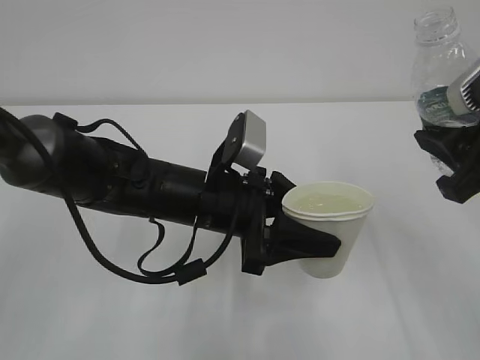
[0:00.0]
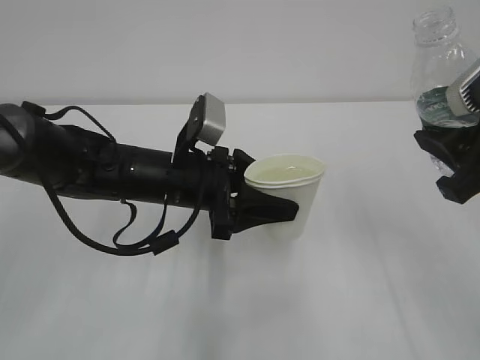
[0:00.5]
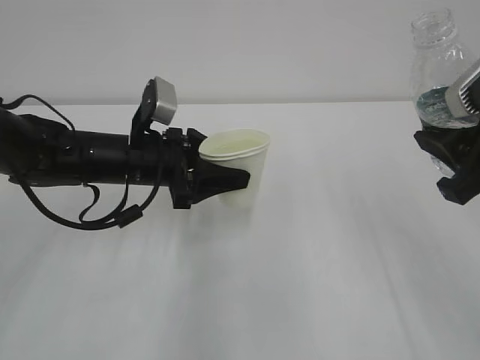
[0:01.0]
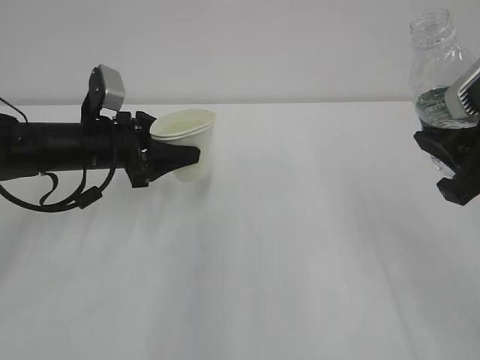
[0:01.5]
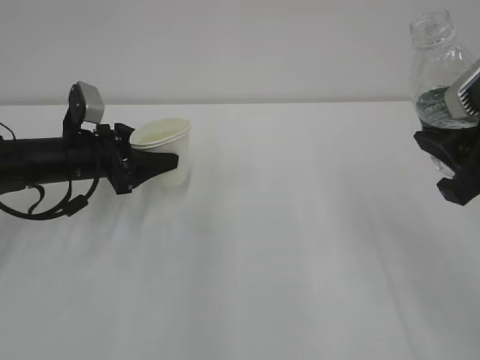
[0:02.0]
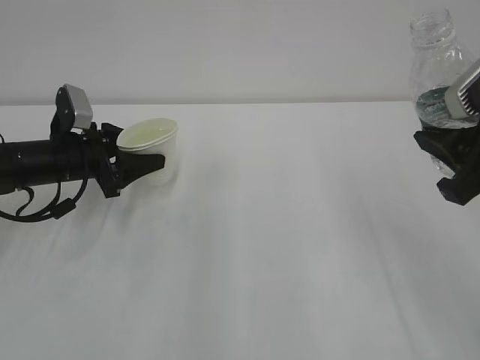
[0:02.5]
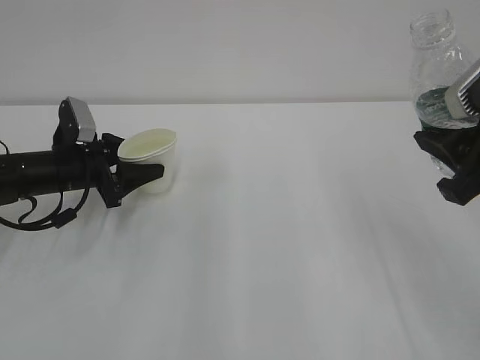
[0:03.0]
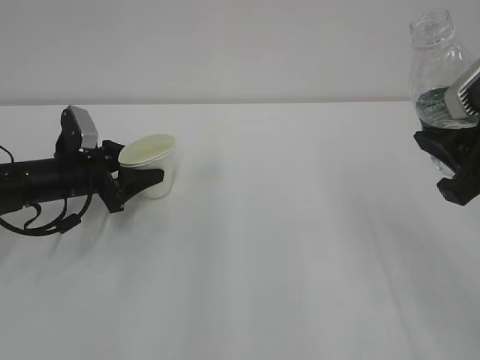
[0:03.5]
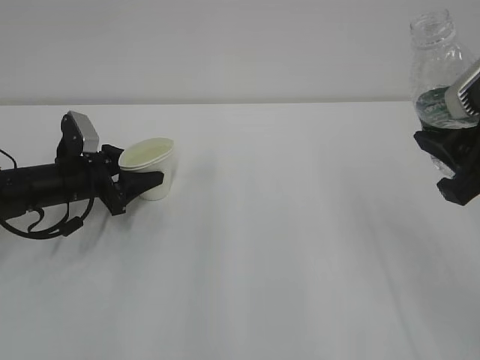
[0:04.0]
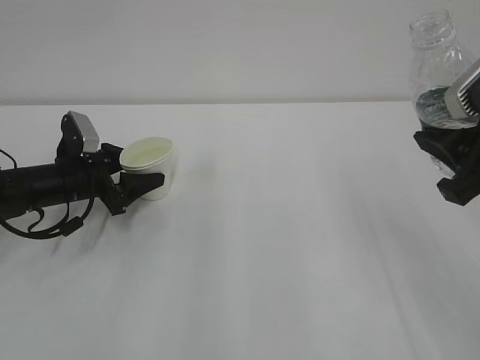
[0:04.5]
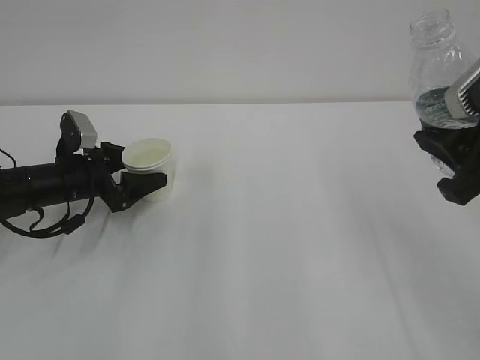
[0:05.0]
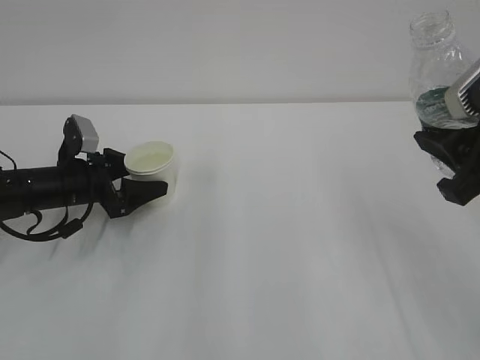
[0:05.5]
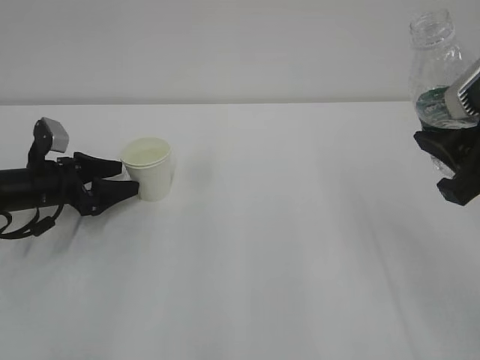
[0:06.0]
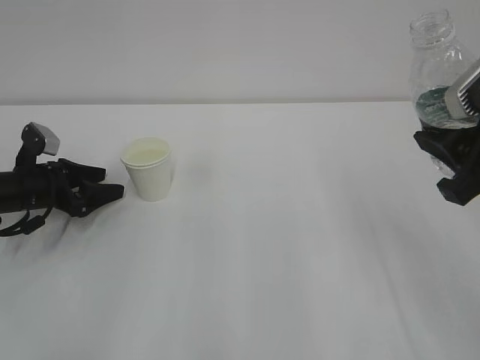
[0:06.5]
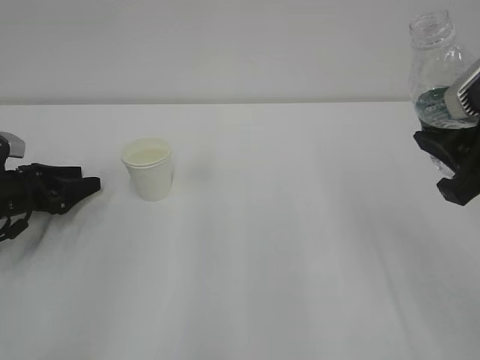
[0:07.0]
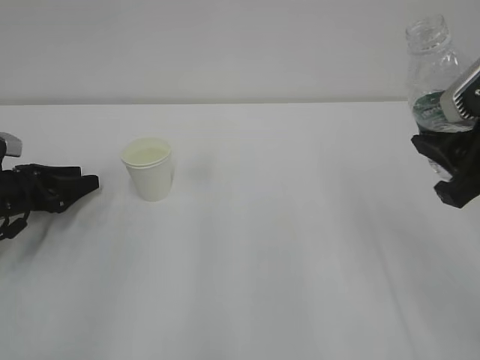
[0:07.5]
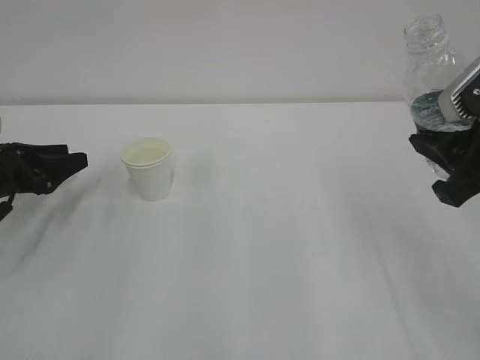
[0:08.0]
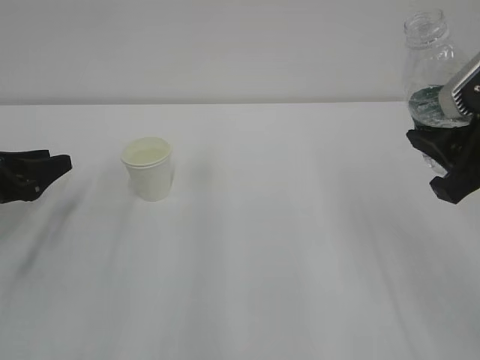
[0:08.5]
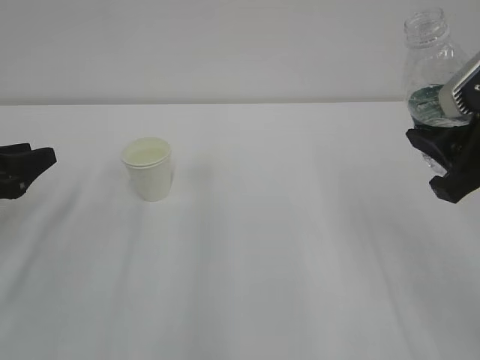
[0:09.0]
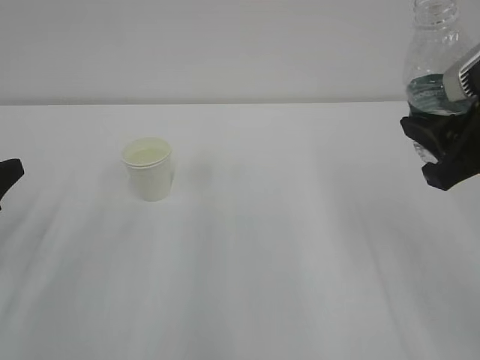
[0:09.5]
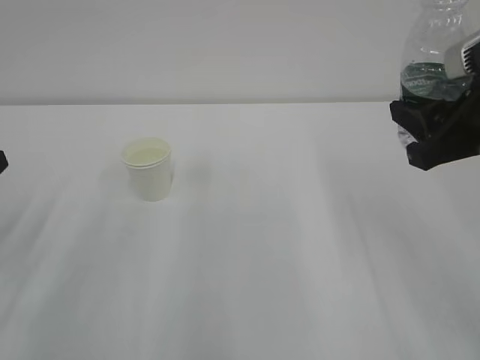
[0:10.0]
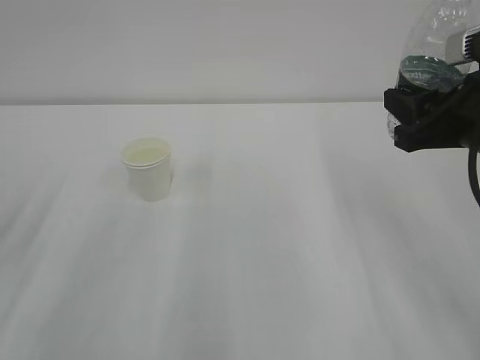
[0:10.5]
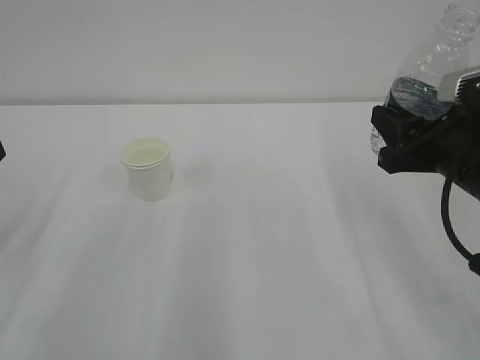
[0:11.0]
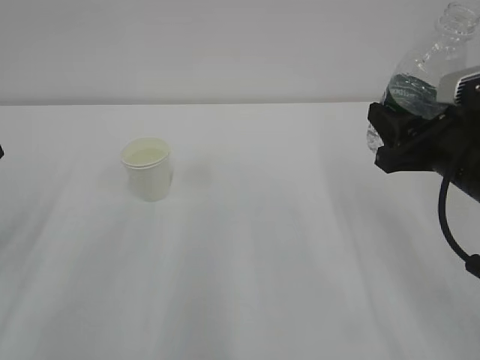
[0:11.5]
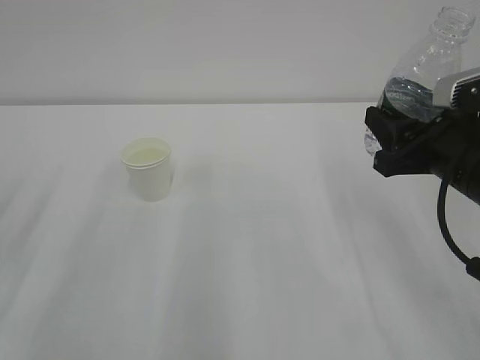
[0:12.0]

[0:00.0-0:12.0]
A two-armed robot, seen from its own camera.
0:00.0 to 0:02.0: The left gripper goes roughly 20 cm to the left and forward.
0:02.0 to 0:04.0: The left gripper moves approximately 5 cm.
0:04.0 to 0:06.0: The left gripper opens.
0:06.0 to 0:08.0: The left gripper shifts approximately 5 cm to the left.
0:08.0 to 0:10.0: The left gripper moves backward and upward, approximately 15 cm.
0:10.0 to 0:12.0: The right gripper travels downward by approximately 5 cm.

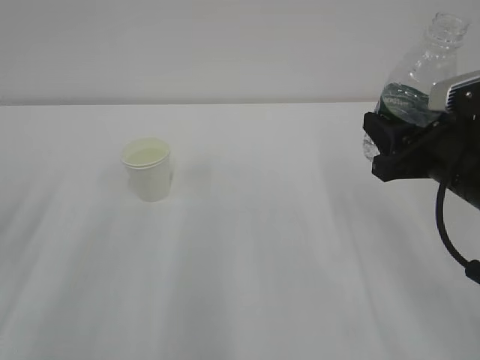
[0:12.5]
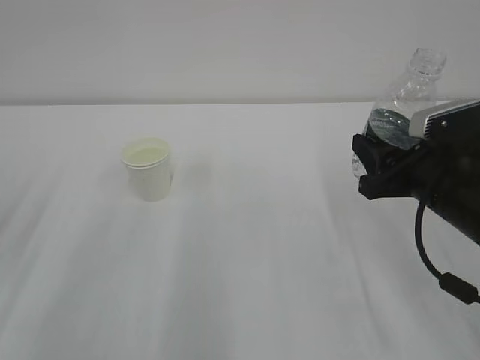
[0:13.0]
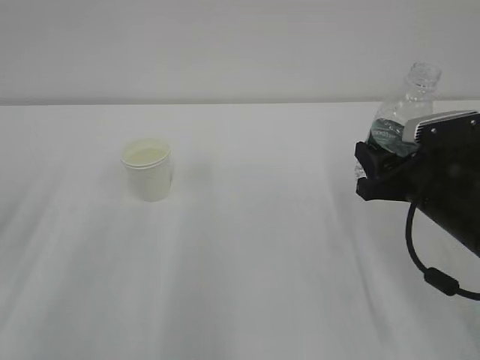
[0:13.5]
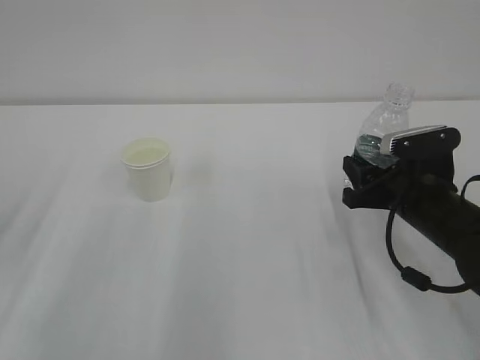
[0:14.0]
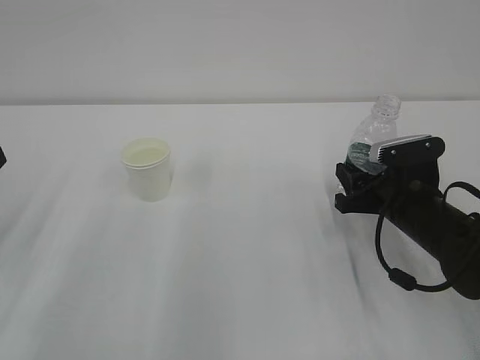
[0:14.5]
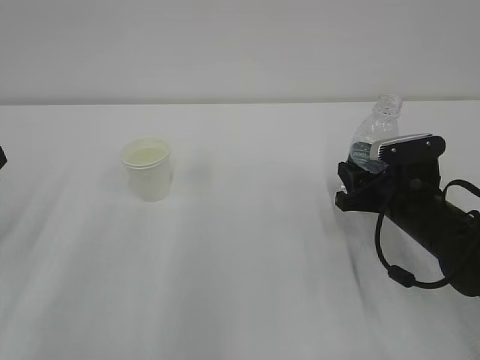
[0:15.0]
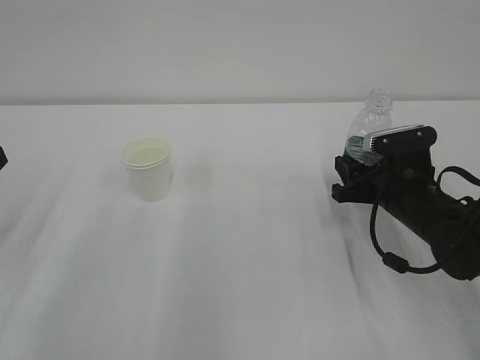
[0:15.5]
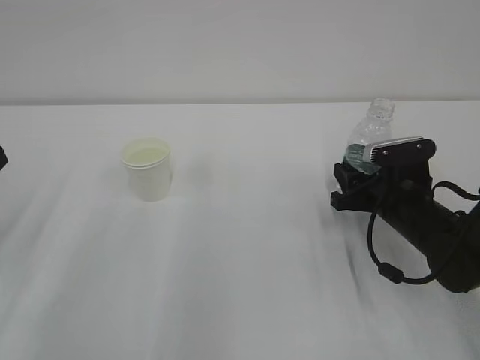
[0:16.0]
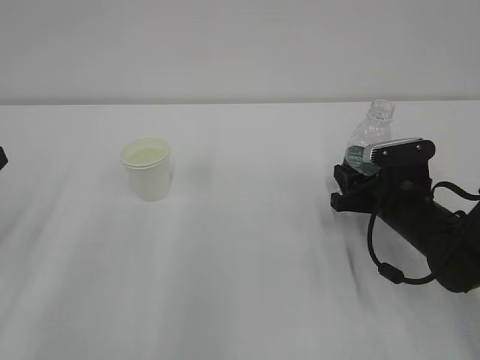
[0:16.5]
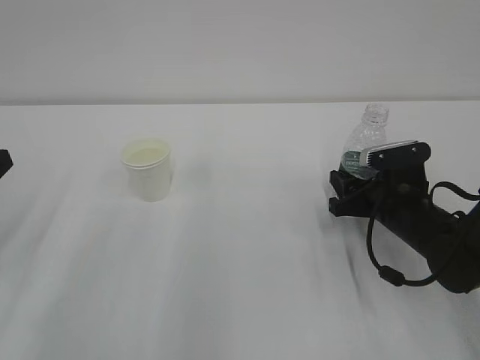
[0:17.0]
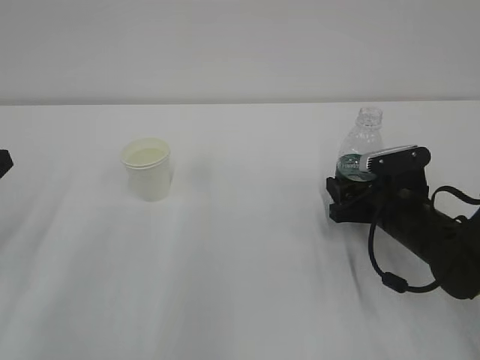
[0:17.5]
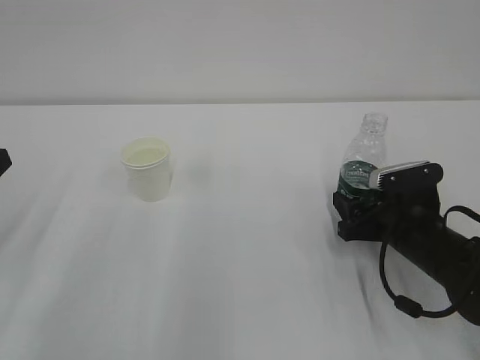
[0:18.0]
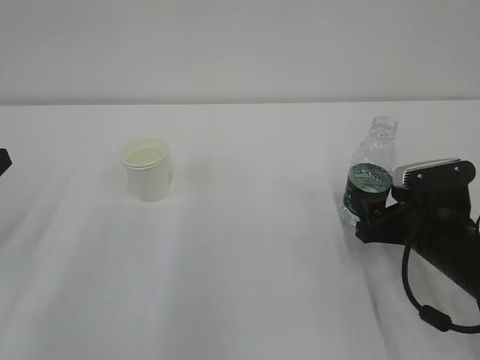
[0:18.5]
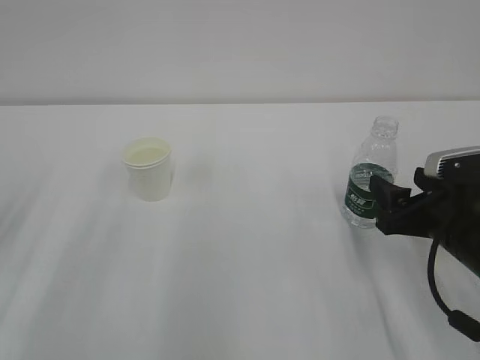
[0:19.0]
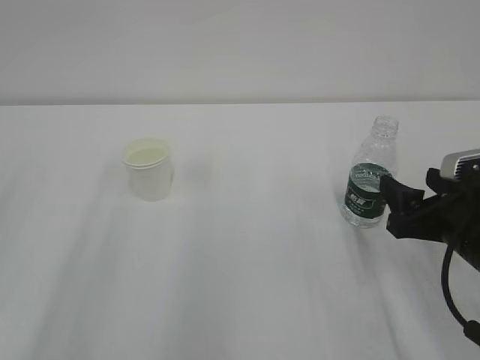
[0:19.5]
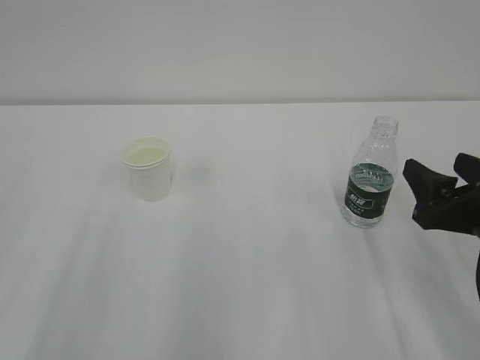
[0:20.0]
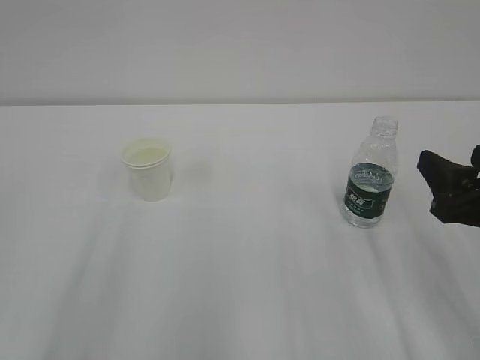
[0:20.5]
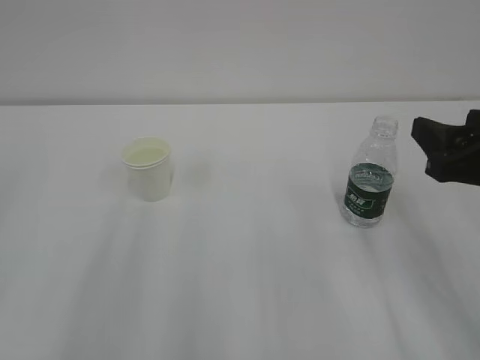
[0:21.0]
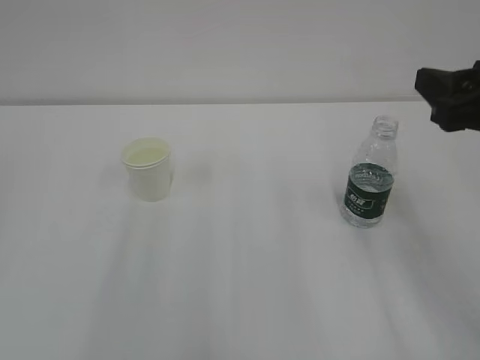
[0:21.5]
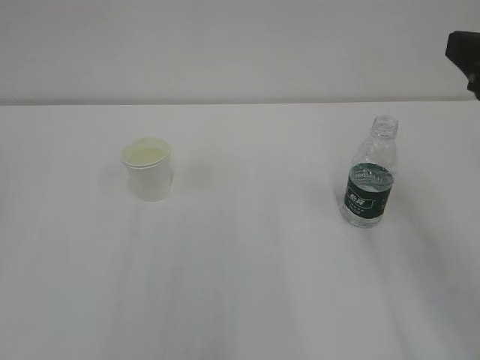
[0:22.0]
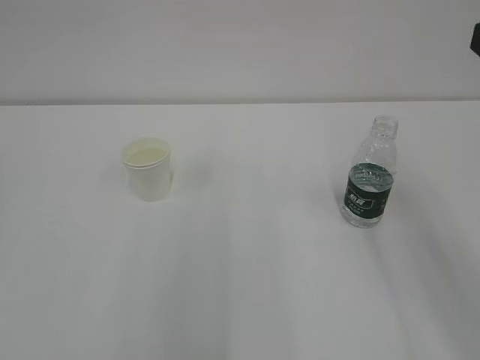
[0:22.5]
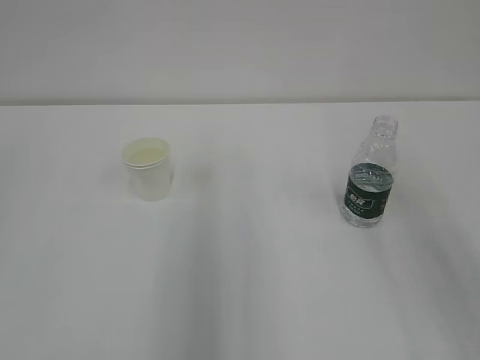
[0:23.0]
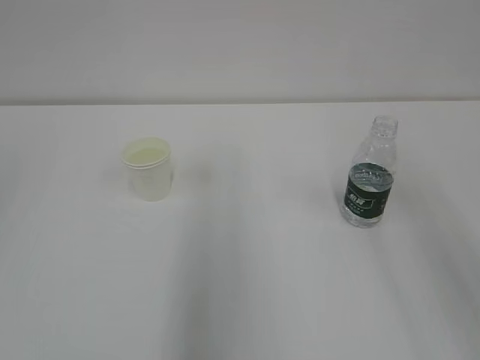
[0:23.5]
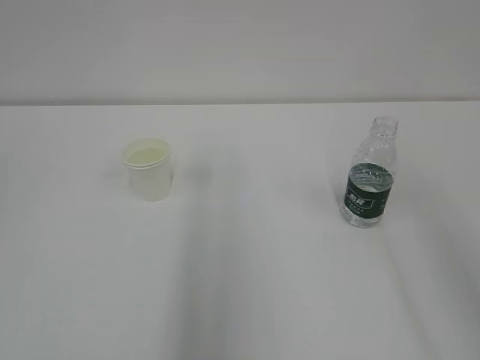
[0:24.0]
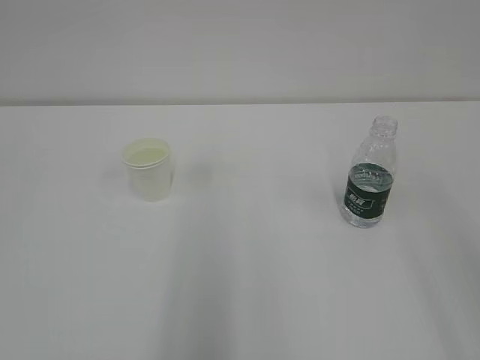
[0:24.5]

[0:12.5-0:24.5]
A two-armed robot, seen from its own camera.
0:12.5 to 0:14.5: The right gripper is displaced downward and forward by some 15 cm.
0:14.5 to 0:16.5: The grippers stay close to where they were, moving slightly.
0:16.5 to 0:18.5: The right gripper shifts roughly 5 cm backward, and opens.
0:18.5 to 0:20.5: The right gripper shifts about 15 cm upward and backward.
0:20.5 to 0:22.5: The right gripper goes about 15 cm upward.
